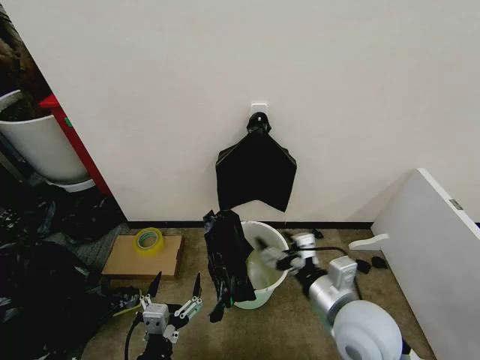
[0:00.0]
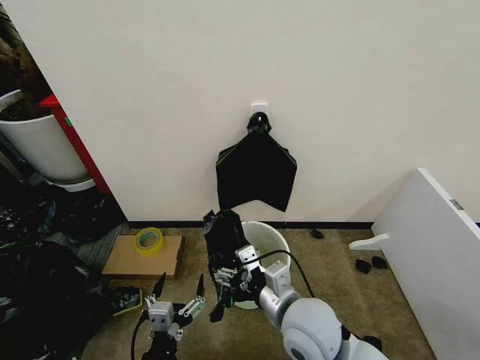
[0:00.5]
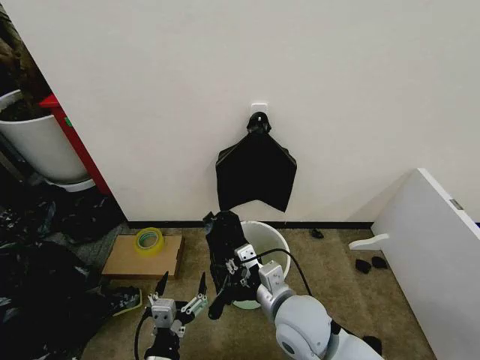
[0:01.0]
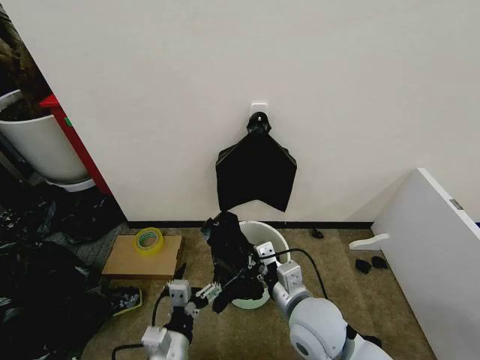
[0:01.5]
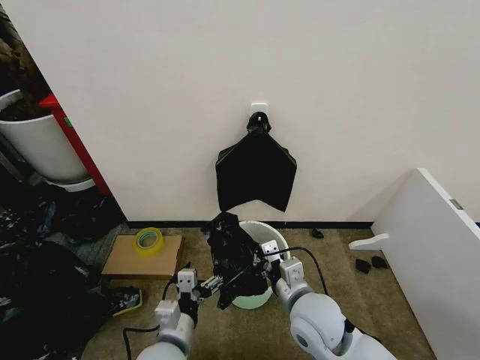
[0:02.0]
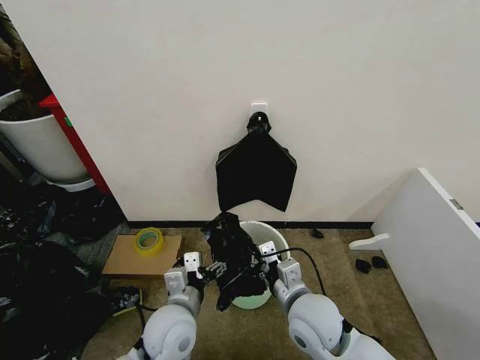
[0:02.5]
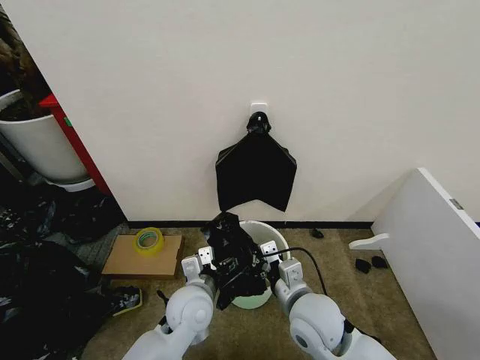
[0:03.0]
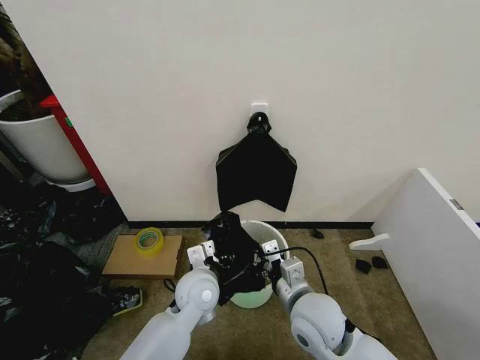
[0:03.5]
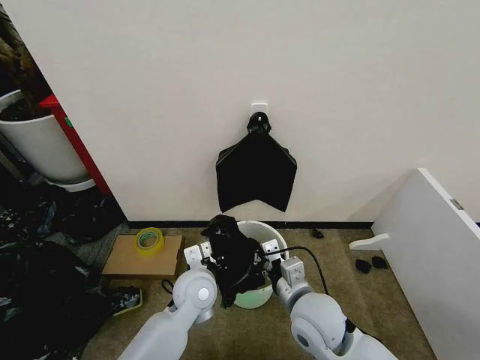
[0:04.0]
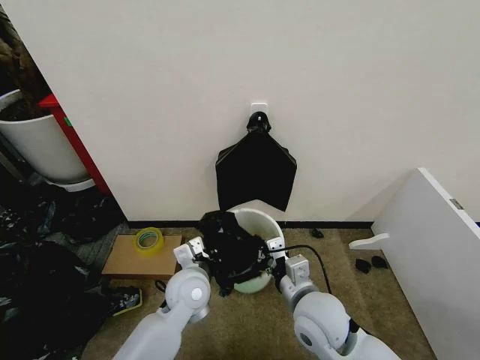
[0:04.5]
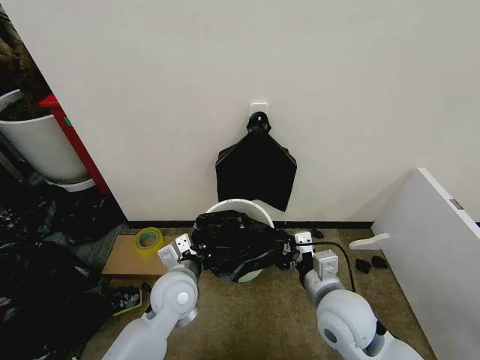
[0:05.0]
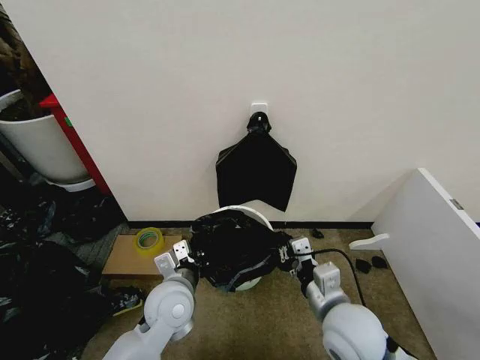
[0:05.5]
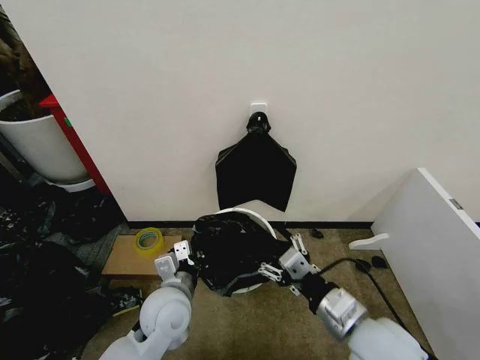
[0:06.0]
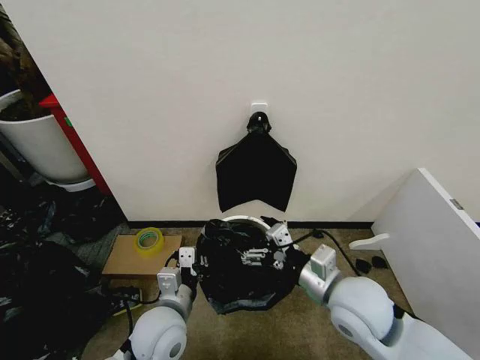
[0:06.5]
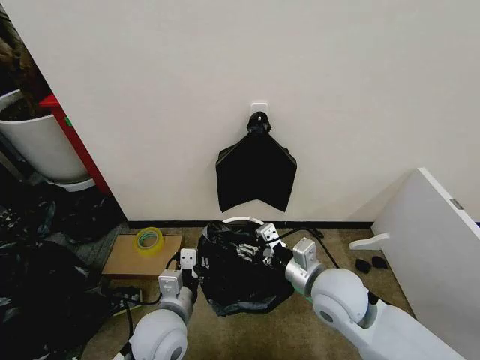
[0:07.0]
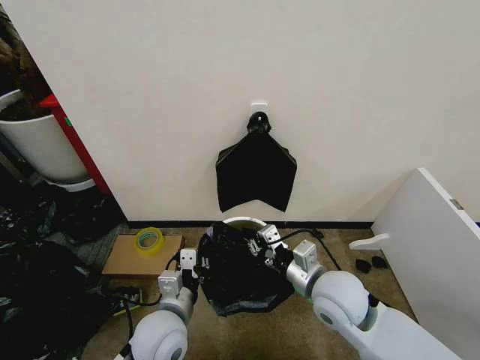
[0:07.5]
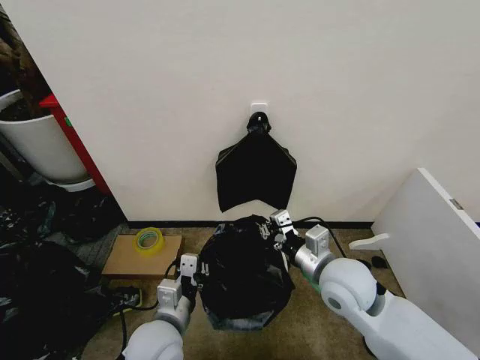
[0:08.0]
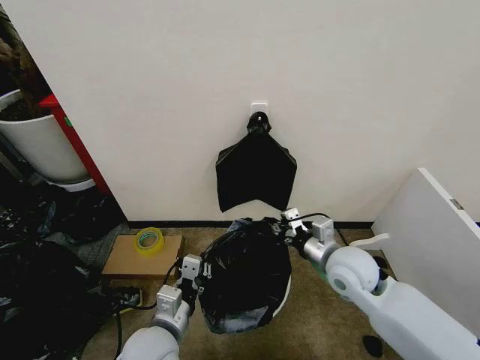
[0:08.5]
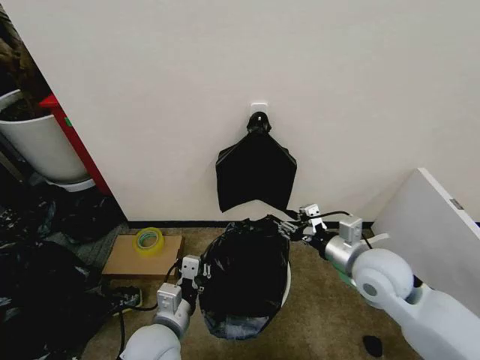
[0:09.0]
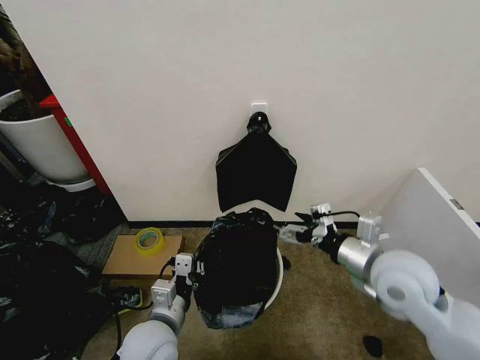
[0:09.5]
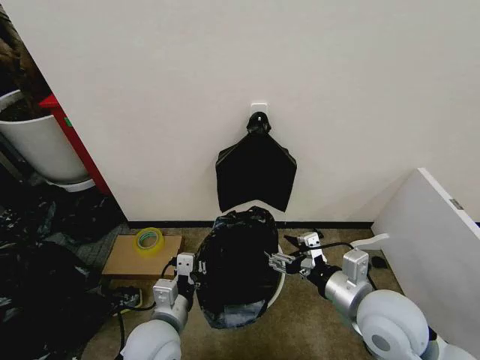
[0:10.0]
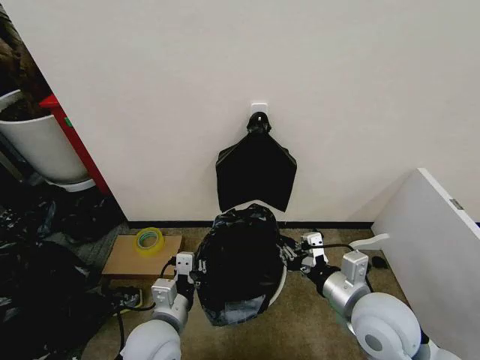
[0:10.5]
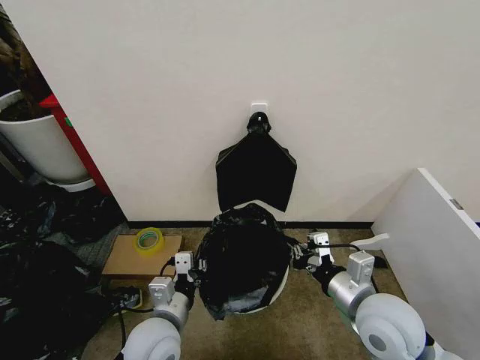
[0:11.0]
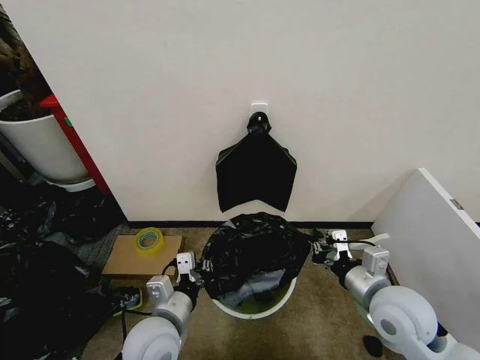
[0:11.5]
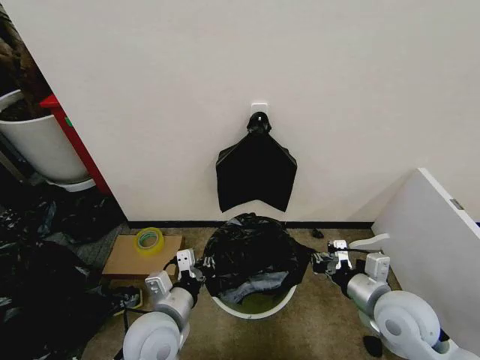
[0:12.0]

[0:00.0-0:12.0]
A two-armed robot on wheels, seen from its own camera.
Task of the whole recording: Place the garbage bag over the trash bin.
0:00.0 to 0:02.0: The left gripper moves forward, approximately 10 cm, while the right gripper goes some 10 cm downward and to the left, and closes up.
0:02.0 to 0:04.0: The left gripper heads forward, covering approximately 15 cm, and closes.
0:04.0 to 0:06.0: The left gripper ends up roughly 5 cm from where it was, while the right gripper is displaced to the right, backward and upward by approximately 10 cm, and opens its fingers.
0:06.0 to 0:08.0: The right gripper heads forward, covering approximately 10 cm, and closes its fingers, while the left gripper moves backward, approximately 5 cm.
0:08.0 to 0:10.0: The right gripper goes some 5 cm backward, and opens up.
0:10.0 to 0:12.0: The right gripper is displaced to the right and downward by roughly 10 cm, and closes its fingers.

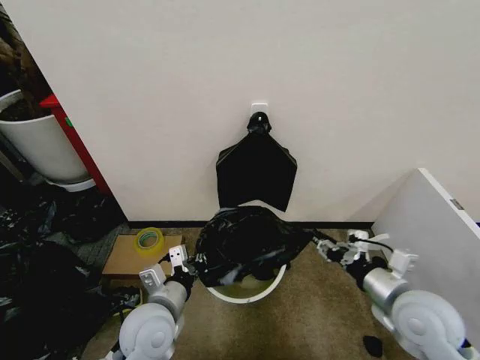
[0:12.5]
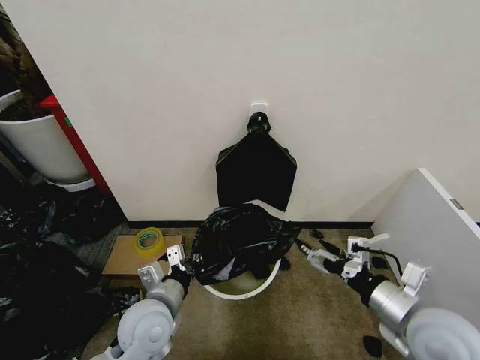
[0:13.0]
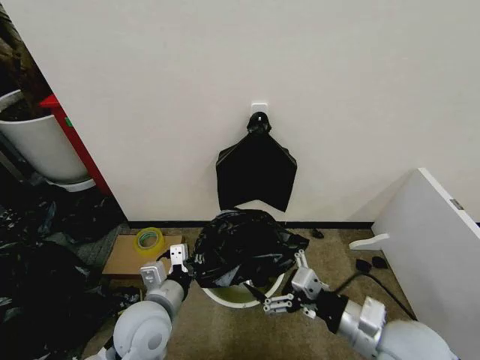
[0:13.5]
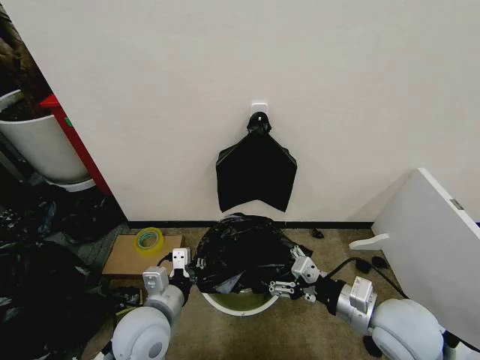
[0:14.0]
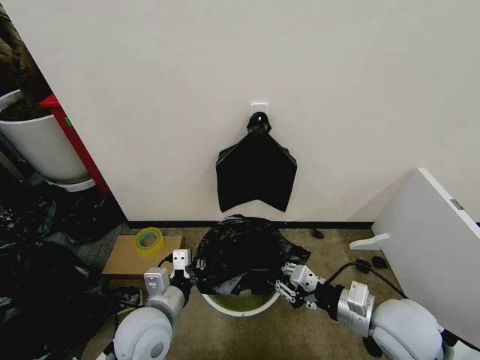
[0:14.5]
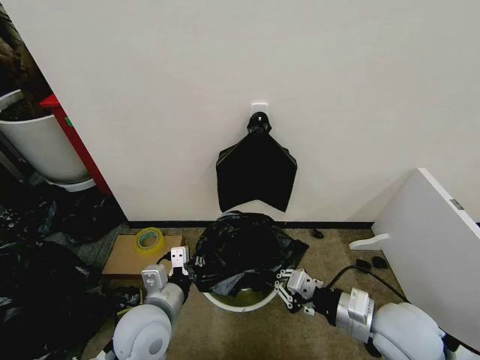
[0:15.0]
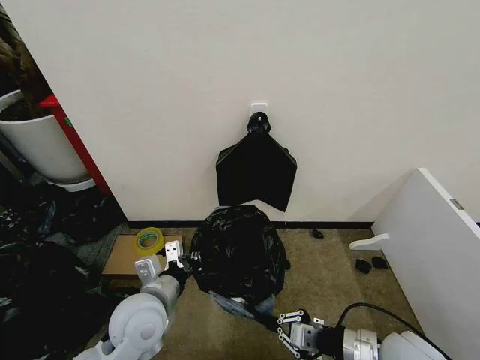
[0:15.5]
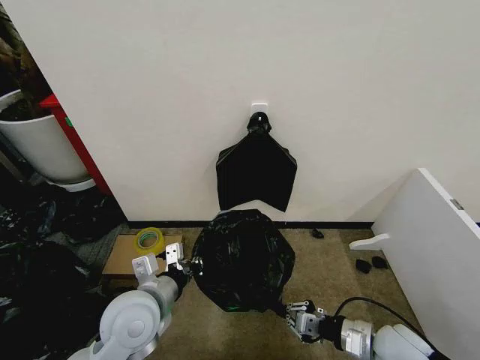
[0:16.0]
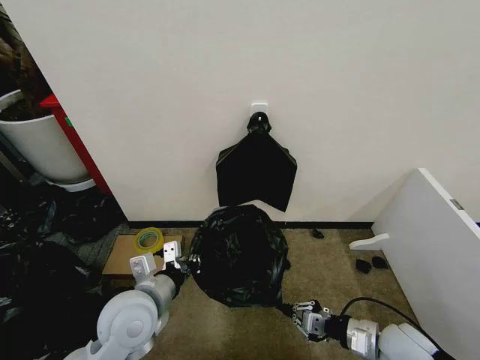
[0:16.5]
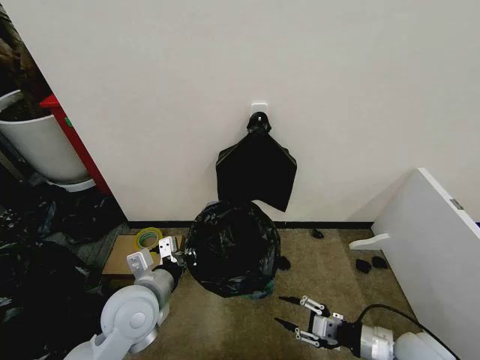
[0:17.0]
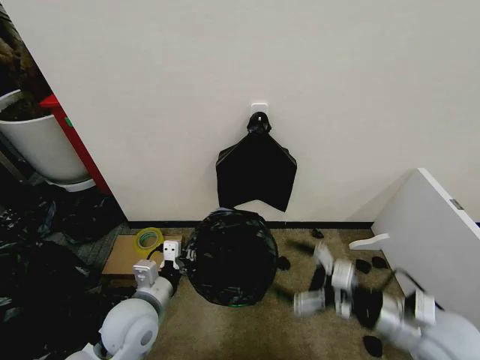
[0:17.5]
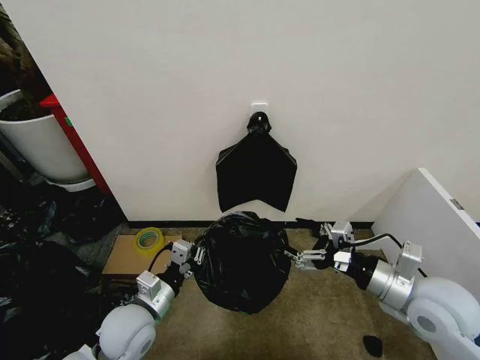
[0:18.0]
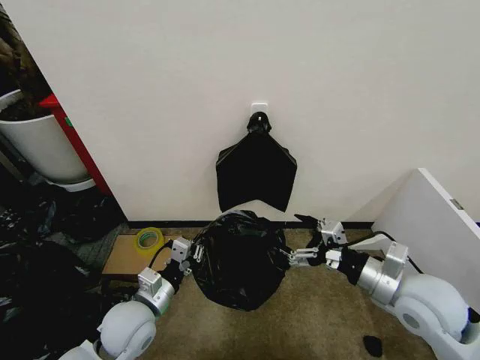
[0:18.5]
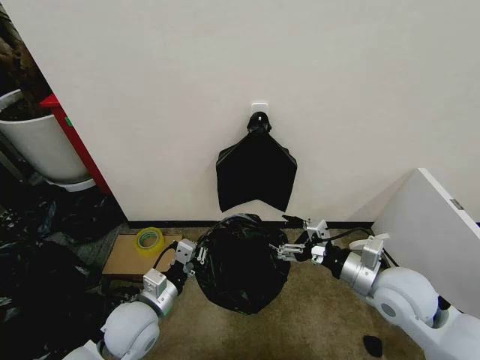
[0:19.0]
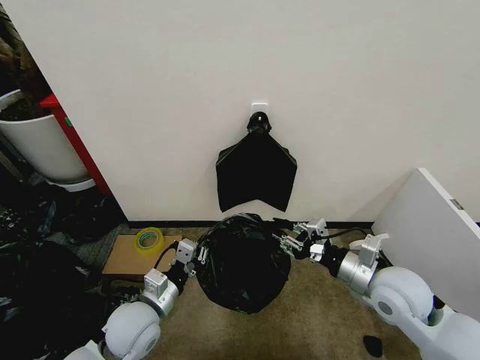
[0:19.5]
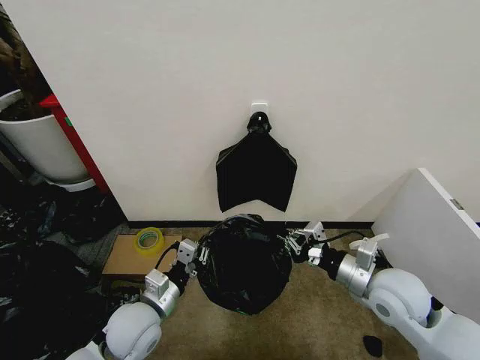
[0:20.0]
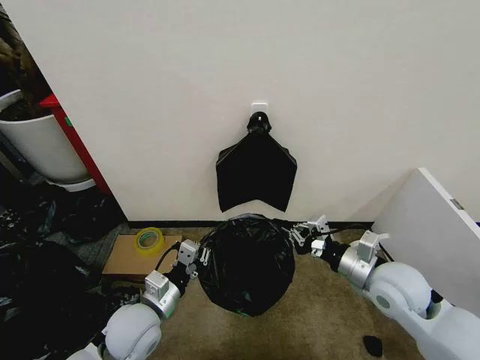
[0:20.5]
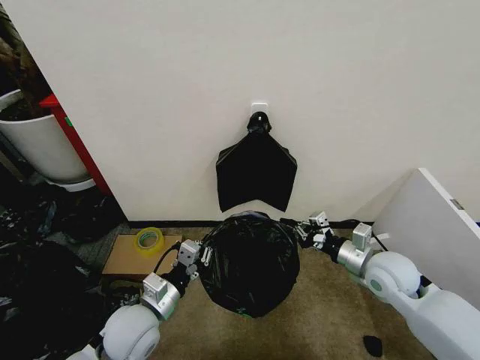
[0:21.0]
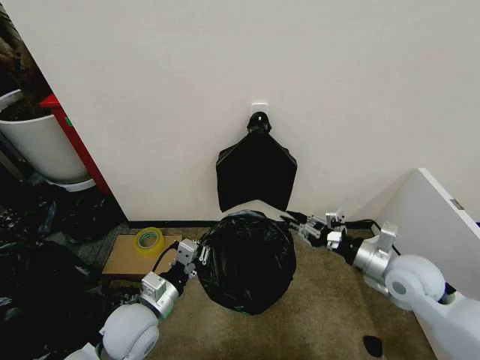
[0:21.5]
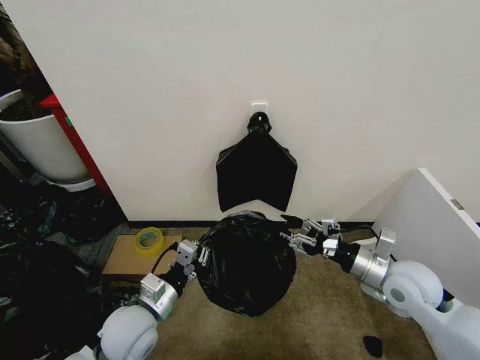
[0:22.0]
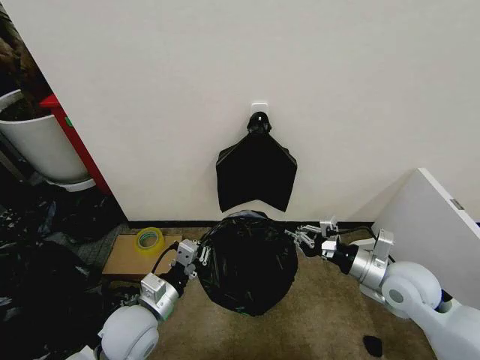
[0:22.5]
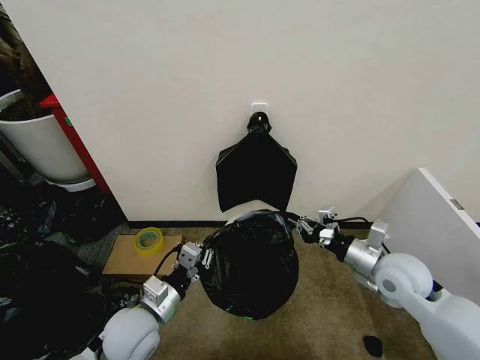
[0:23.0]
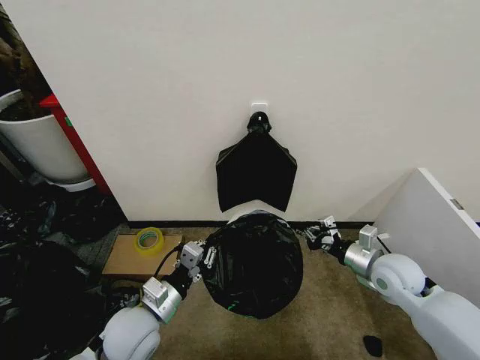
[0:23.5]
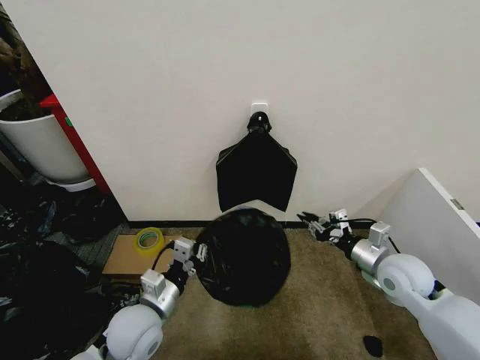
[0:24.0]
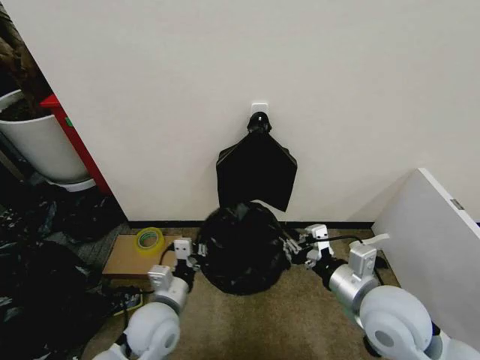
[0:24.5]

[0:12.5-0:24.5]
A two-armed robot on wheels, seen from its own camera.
Task of the whole recording: Place the garbage bag over the trash bin.
0:12.5 to 0:14.5: The right gripper opens, then closes once more.
0:14.5 to 0:16.5: The left gripper changes place by approximately 5 cm. Meanwhile the right gripper goes roughly 10 cm downward and to the right.
0:16.5 to 0:18.5: The right gripper goes roughly 15 cm upward, and opens its fingers. Meanwhile the left gripper moves downward, roughly 10 cm.
0:18.5 to 0:20.5: The right gripper ends up approximately 5 cm from where it was, and closes.
0:20.5 to 0:22.5: The right gripper opens, then closes again.
0:22.5 to 0:24.5: The right gripper heads to the left and backward, covering some 10 cm.

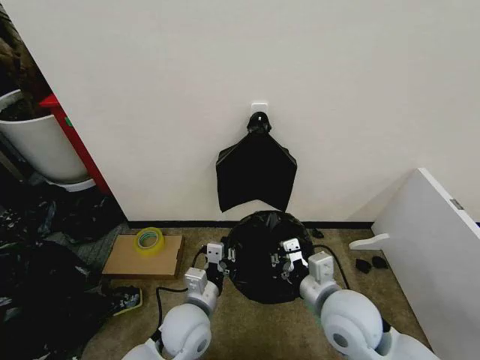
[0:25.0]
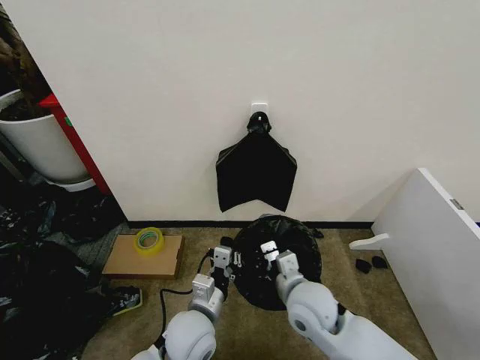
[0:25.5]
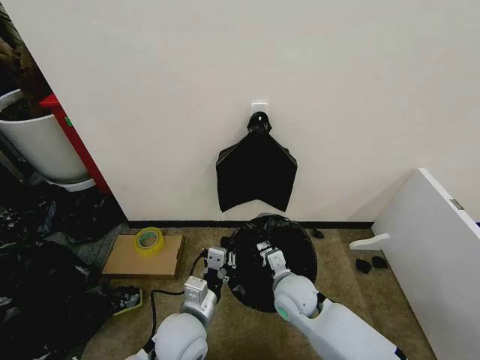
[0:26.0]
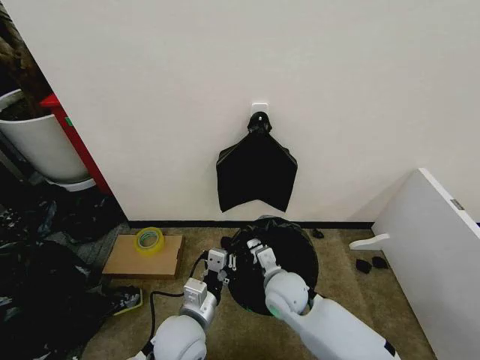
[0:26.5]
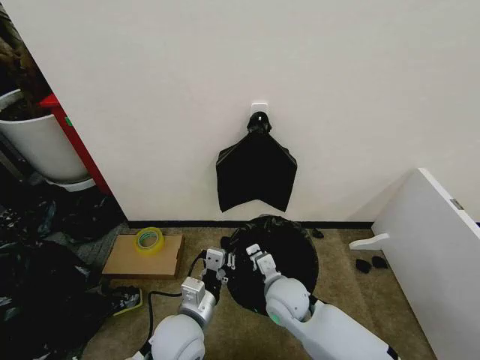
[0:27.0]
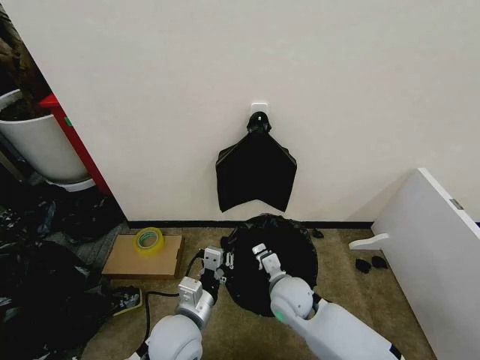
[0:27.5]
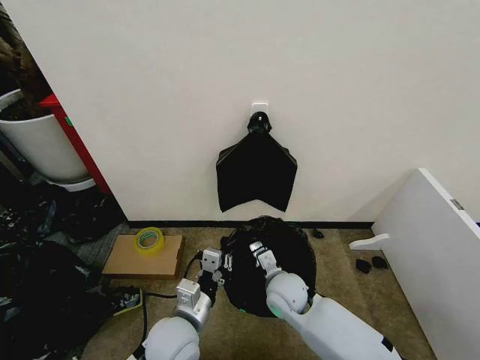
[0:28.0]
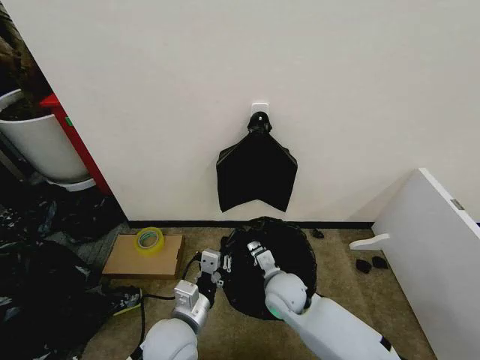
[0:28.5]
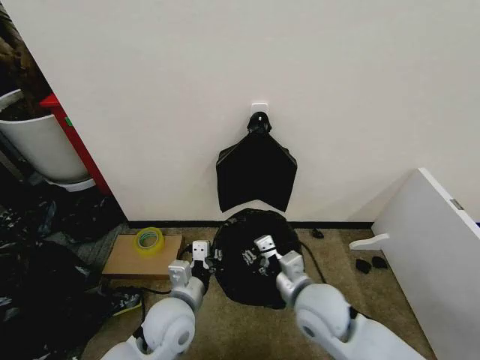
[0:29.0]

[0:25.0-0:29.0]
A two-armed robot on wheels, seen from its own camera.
Task of the whole recording: Place the garbage bag over the trash bin.
0:25.0 to 0:27.0: The right gripper shifts about 15 cm downward, forward and to the left.
0:27.0 to 0:29.0: The right gripper heads upward and backward, covering roughly 10 cm.
